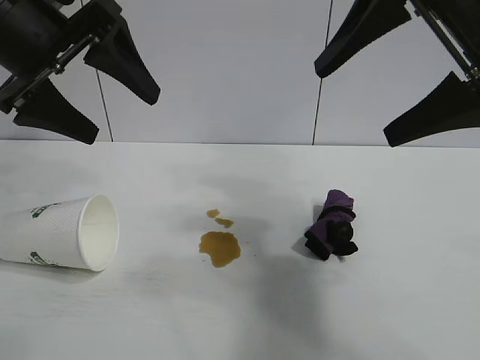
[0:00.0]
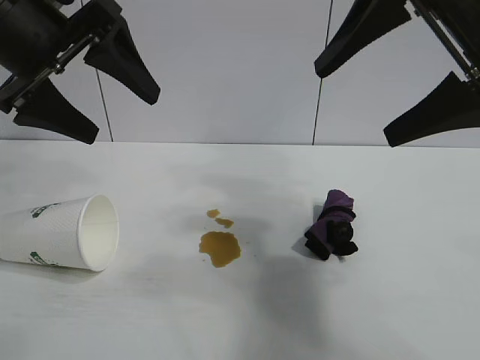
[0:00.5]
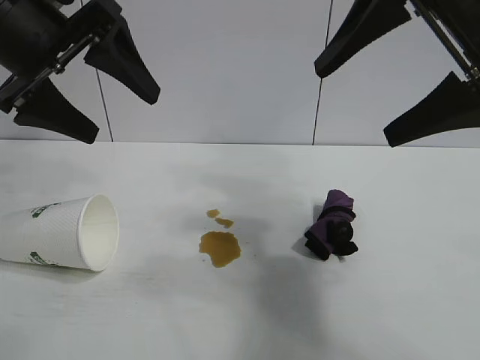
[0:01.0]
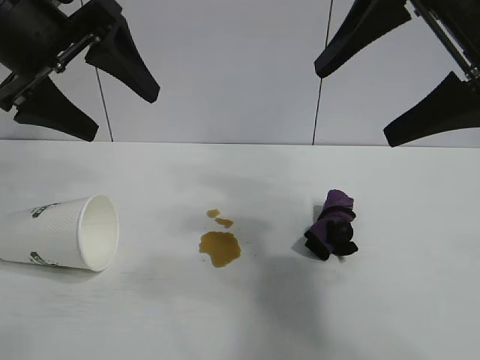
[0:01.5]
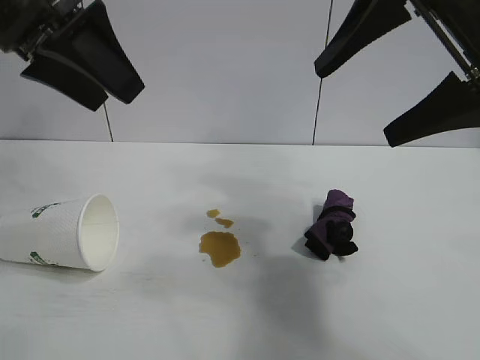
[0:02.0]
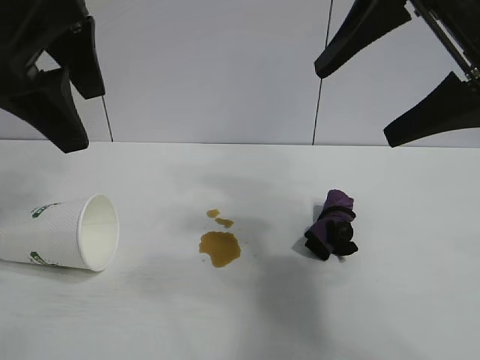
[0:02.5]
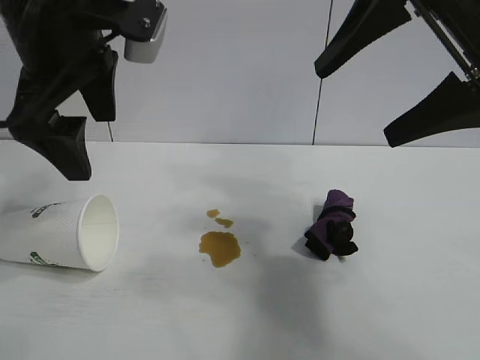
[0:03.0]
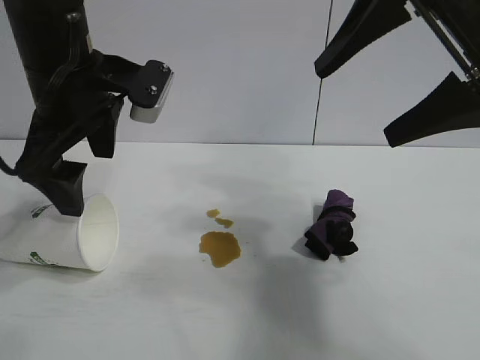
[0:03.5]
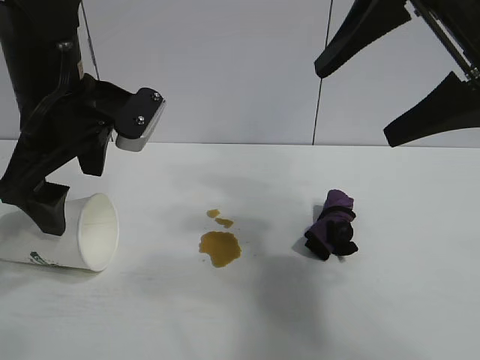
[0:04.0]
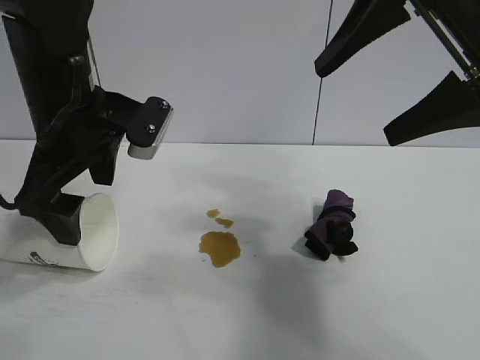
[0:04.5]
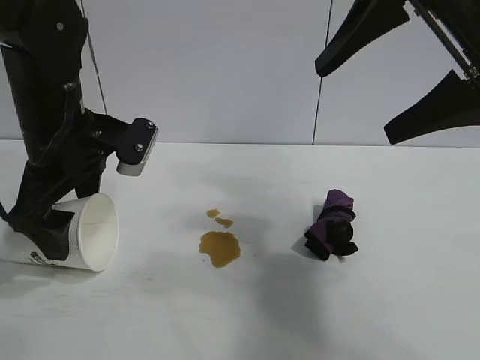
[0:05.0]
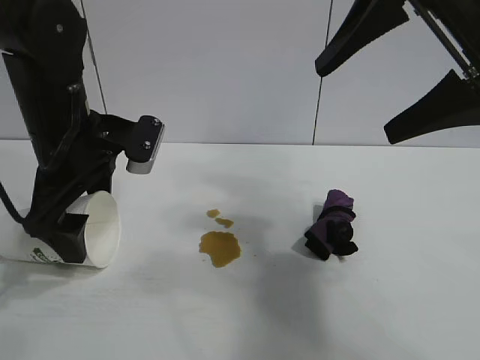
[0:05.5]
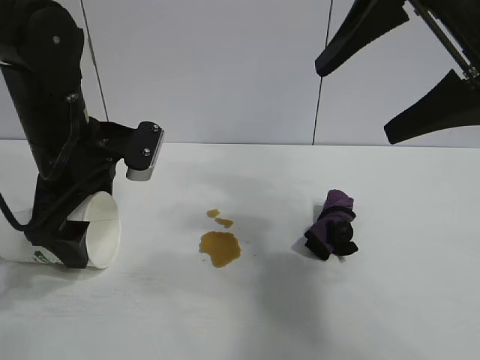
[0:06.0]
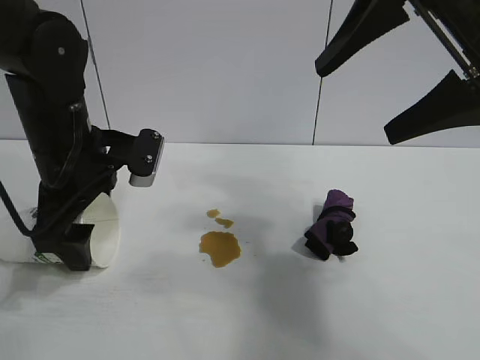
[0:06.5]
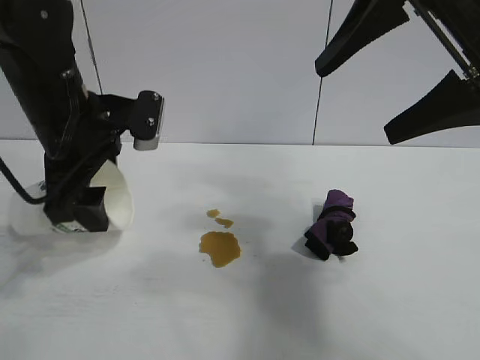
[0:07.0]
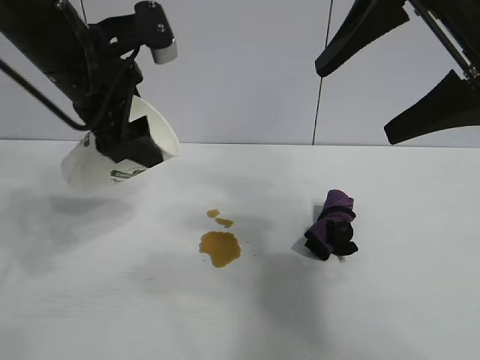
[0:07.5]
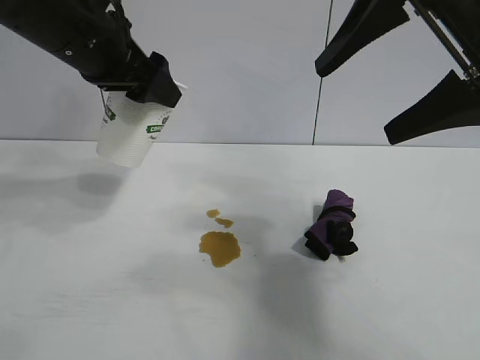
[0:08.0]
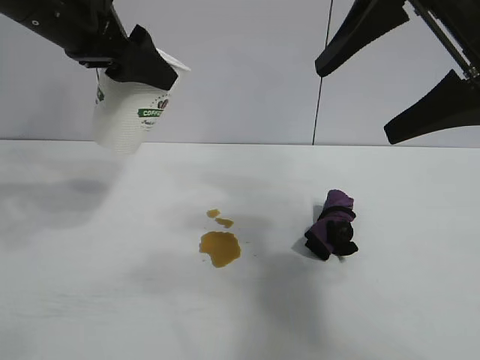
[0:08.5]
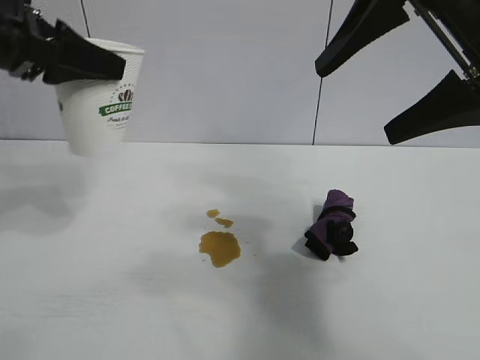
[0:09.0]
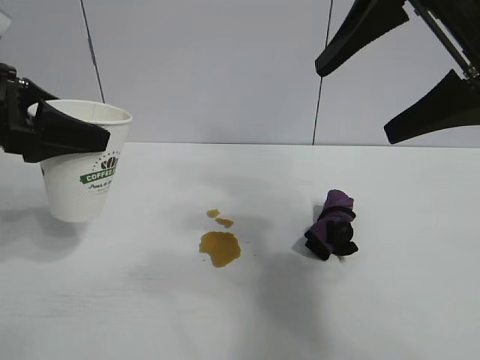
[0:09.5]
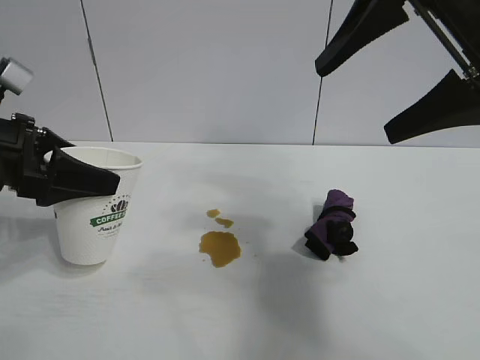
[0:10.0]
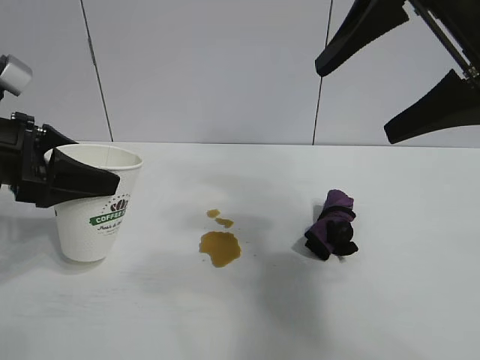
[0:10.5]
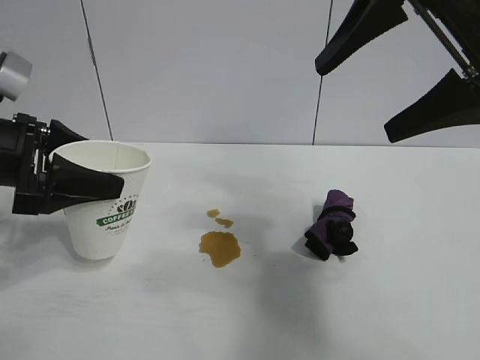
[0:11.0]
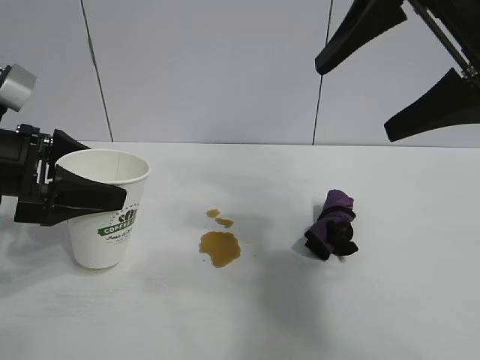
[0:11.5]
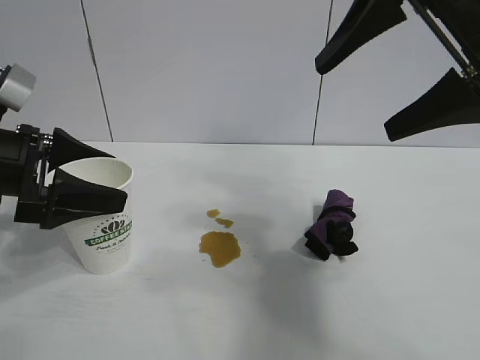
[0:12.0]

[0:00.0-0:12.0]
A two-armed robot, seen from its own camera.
Task of the whole recording: the left gripper pick up the fallen cup and place it upright, the right gripper grasp the black rag and wipe the stain on the table, the right gripper put the black rag back in its original position.
Step, 0:01.5 to 0:06.5: Grasp the paper cup with left gripper.
Step, 0:07.0 to 0:11.5: Stand the paper cup upright with left gripper.

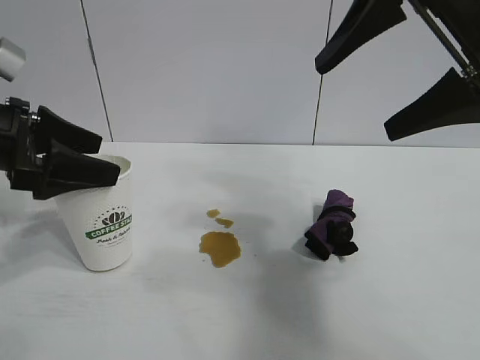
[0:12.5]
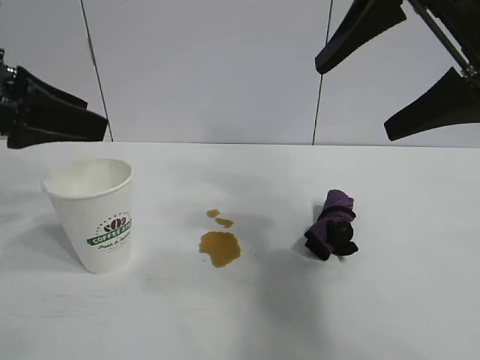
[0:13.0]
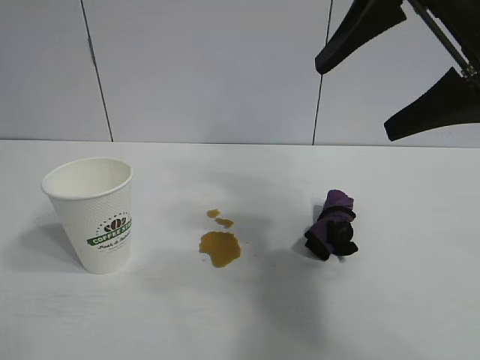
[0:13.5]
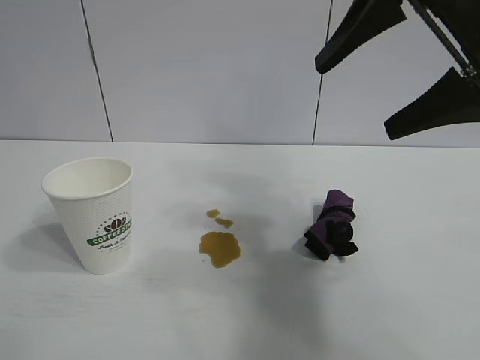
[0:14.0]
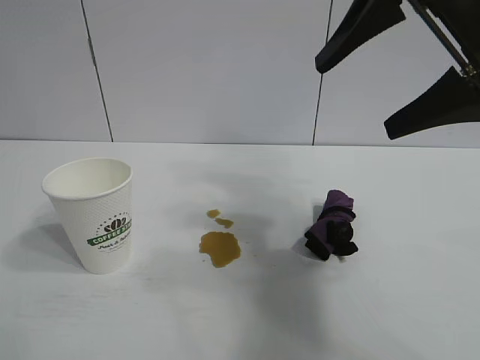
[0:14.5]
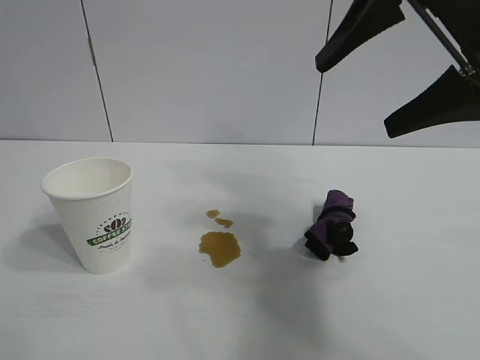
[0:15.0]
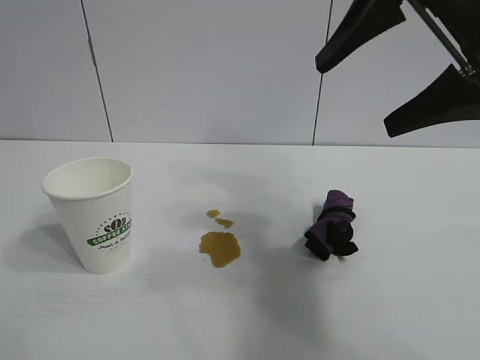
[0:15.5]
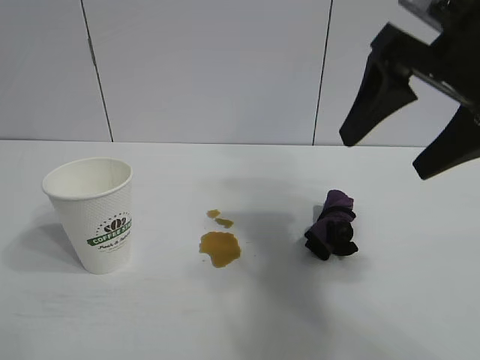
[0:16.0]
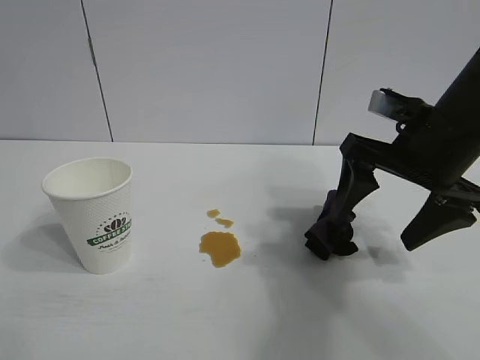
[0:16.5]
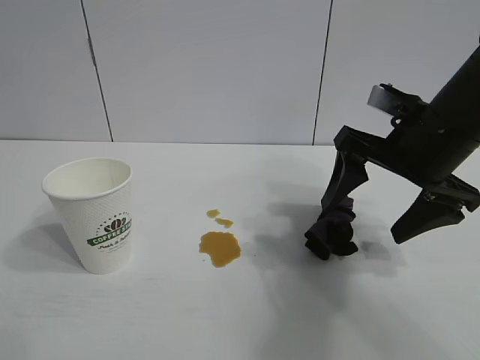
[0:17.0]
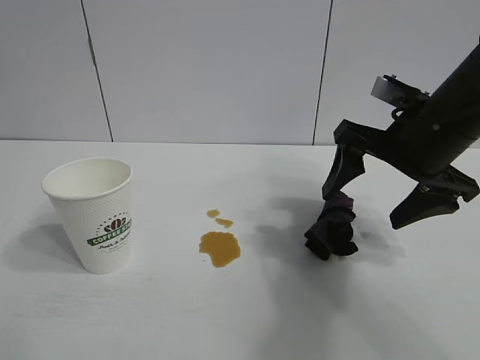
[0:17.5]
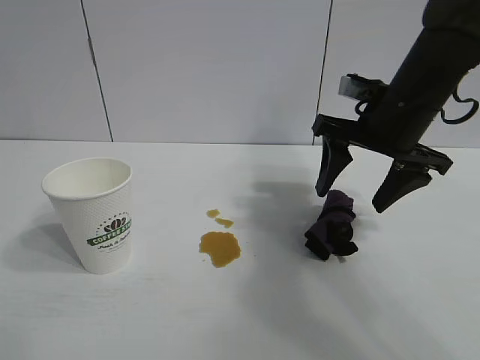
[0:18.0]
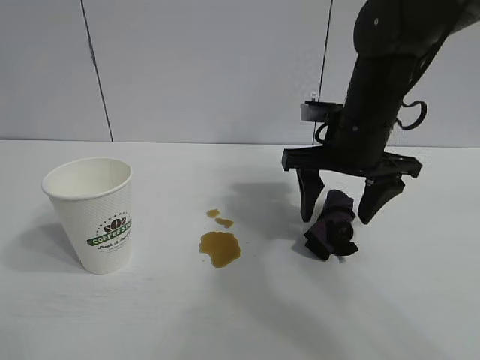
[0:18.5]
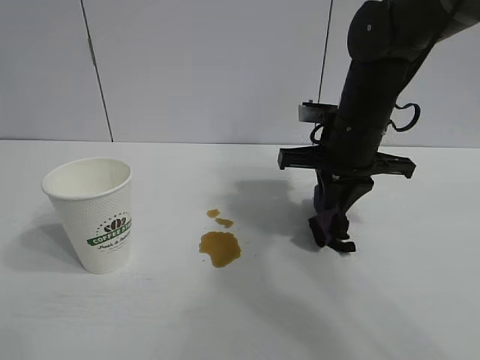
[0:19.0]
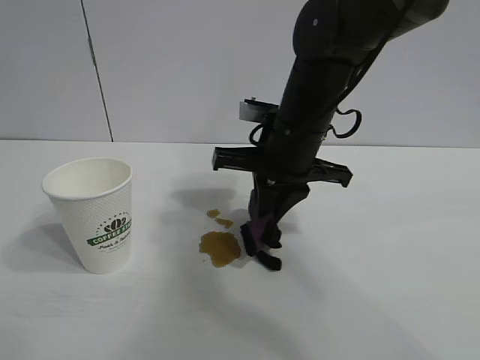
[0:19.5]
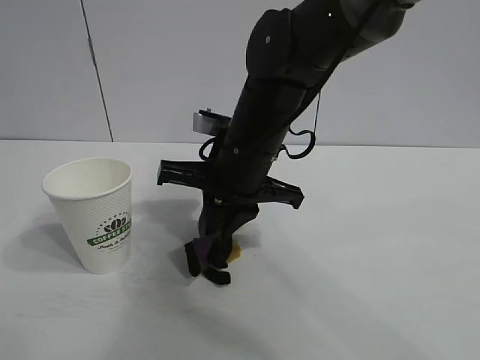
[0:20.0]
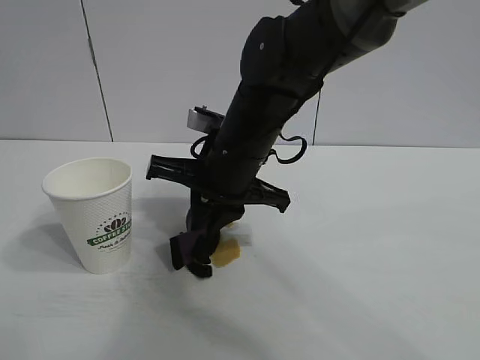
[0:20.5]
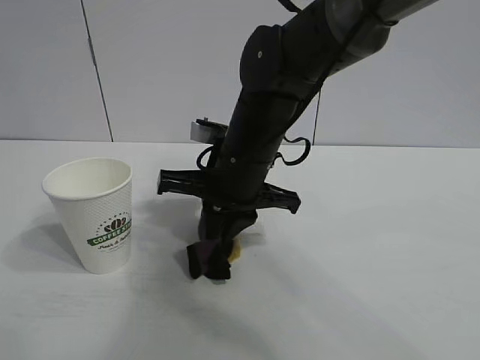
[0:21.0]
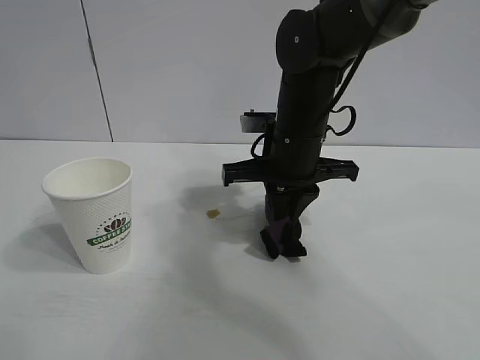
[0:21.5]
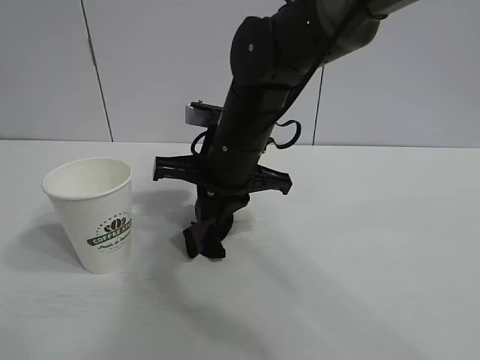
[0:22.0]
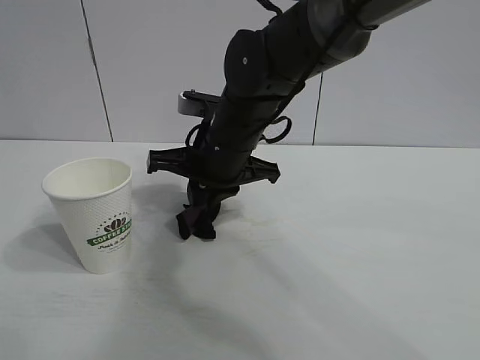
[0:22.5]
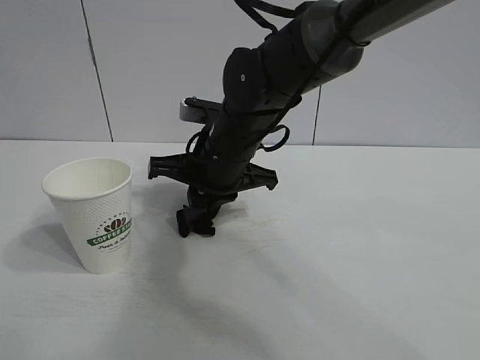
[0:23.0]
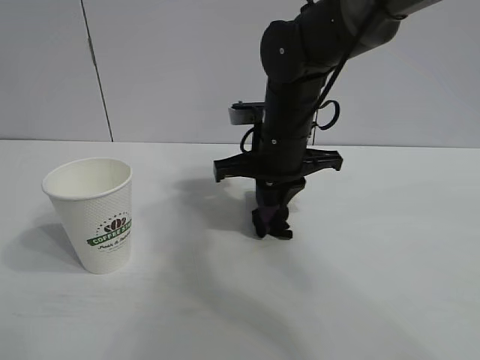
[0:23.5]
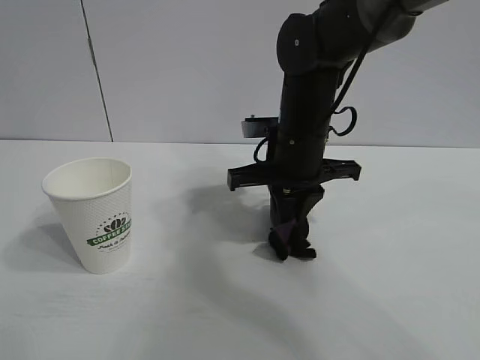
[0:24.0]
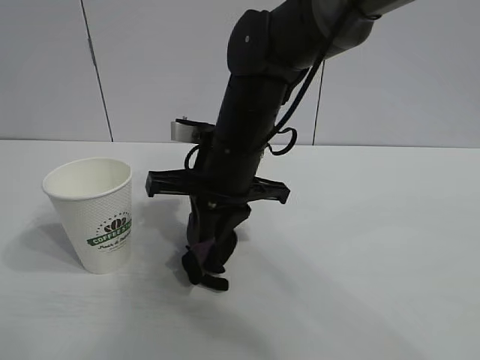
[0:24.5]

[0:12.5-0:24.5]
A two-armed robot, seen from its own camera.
Task of the whole recording: the left gripper pick up the fallen cup and place it upright, the right gripper grasp the black rag and wipe the stain on the table, the right gripper put the black rag back in its original position.
Step, 0:12.5 to 0:18.5: Grasp the rag with right gripper.
